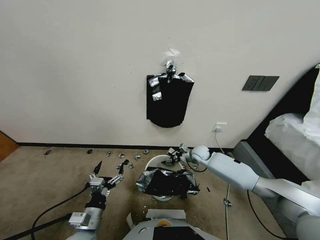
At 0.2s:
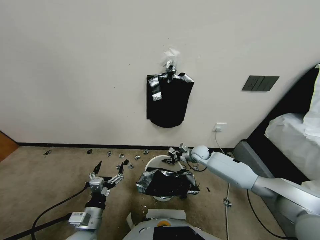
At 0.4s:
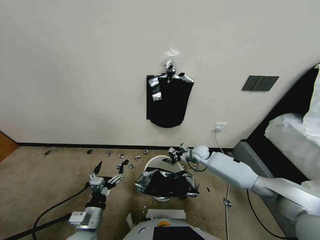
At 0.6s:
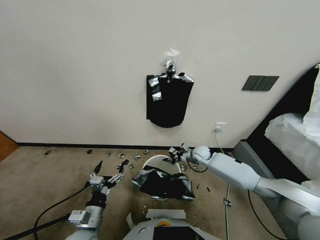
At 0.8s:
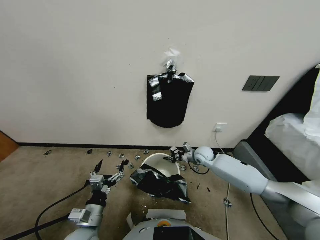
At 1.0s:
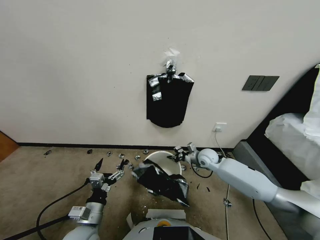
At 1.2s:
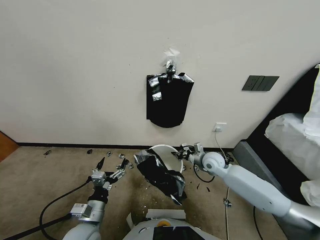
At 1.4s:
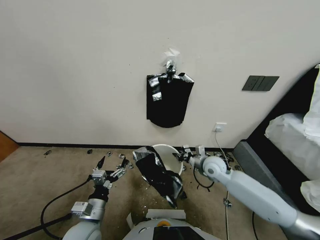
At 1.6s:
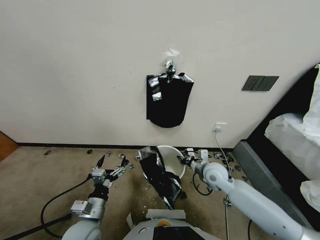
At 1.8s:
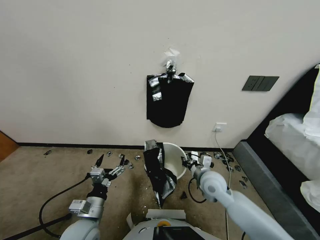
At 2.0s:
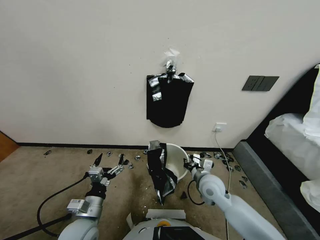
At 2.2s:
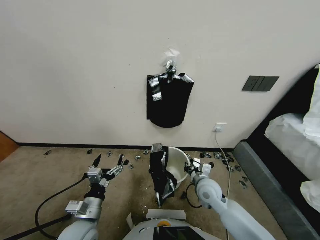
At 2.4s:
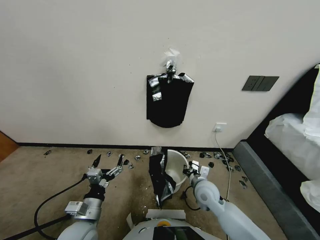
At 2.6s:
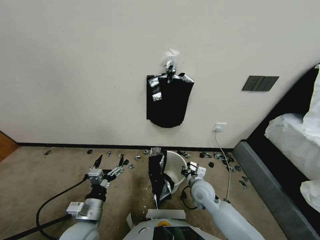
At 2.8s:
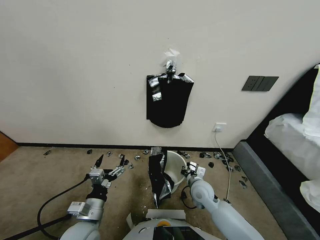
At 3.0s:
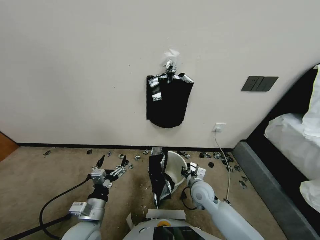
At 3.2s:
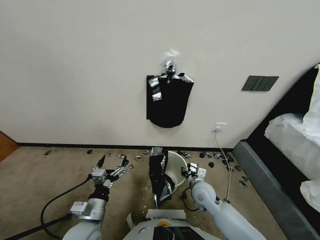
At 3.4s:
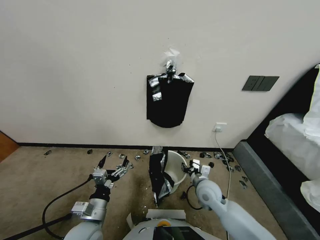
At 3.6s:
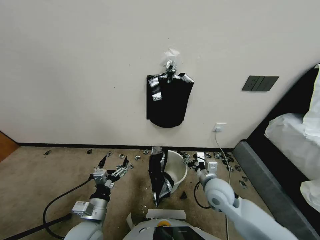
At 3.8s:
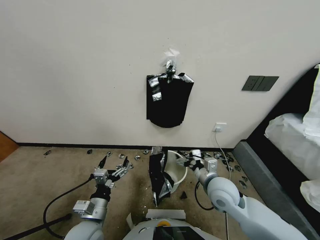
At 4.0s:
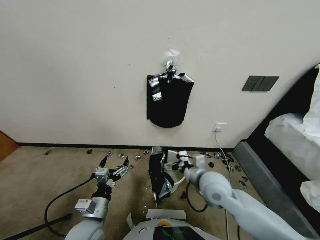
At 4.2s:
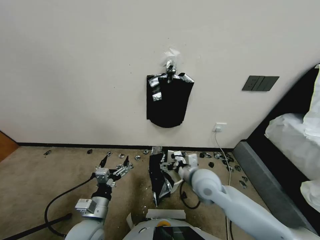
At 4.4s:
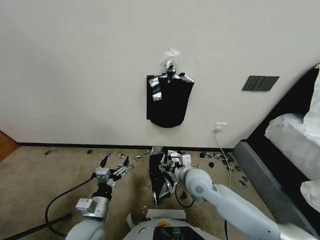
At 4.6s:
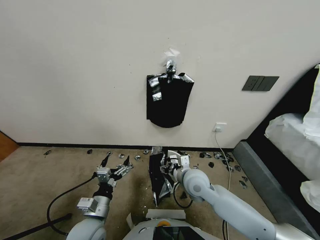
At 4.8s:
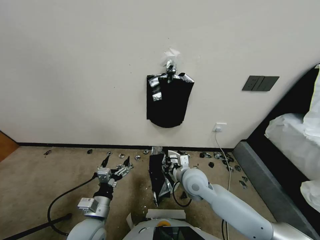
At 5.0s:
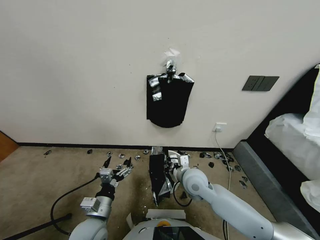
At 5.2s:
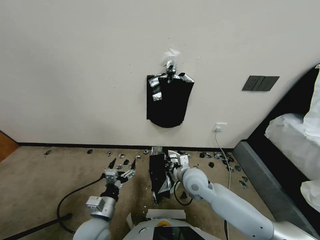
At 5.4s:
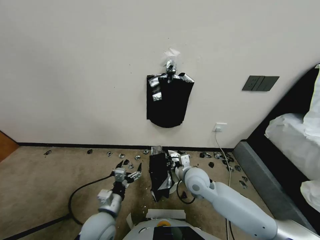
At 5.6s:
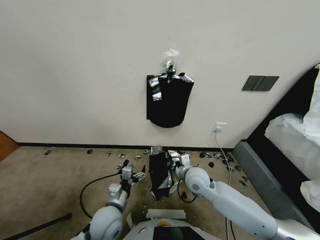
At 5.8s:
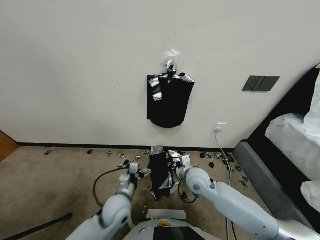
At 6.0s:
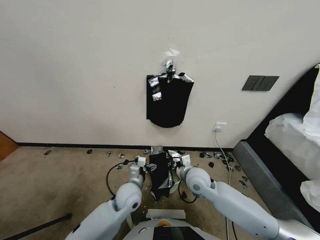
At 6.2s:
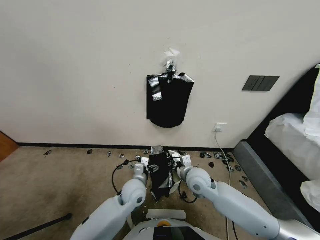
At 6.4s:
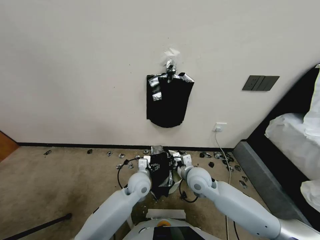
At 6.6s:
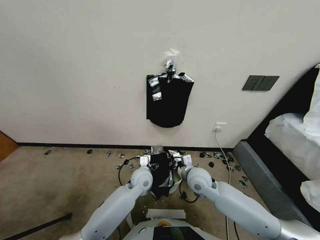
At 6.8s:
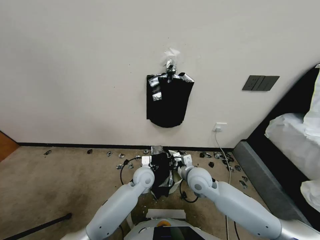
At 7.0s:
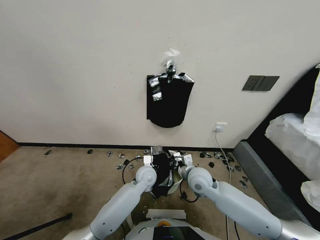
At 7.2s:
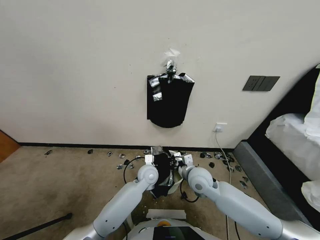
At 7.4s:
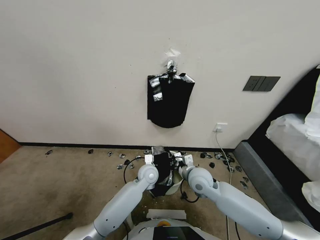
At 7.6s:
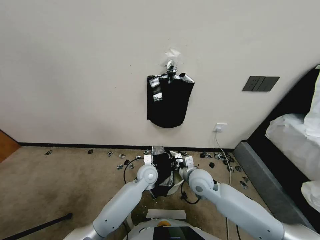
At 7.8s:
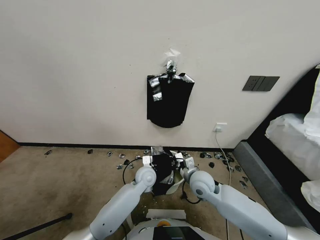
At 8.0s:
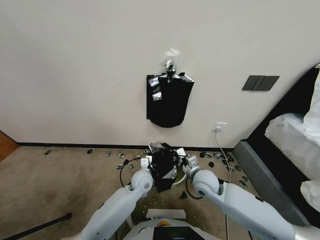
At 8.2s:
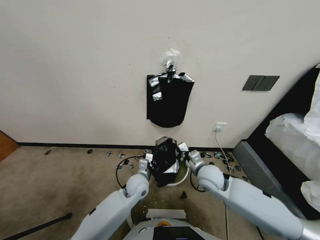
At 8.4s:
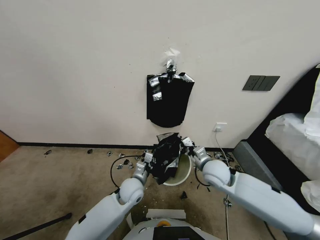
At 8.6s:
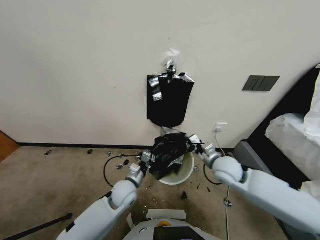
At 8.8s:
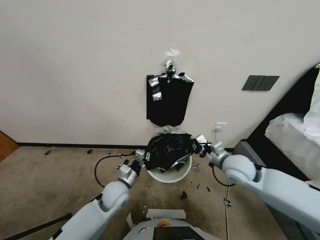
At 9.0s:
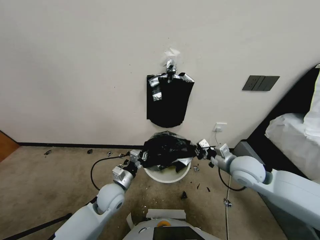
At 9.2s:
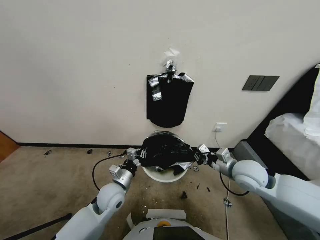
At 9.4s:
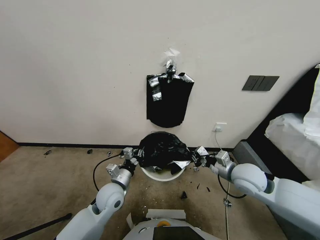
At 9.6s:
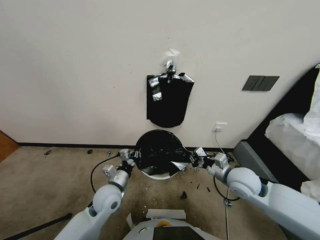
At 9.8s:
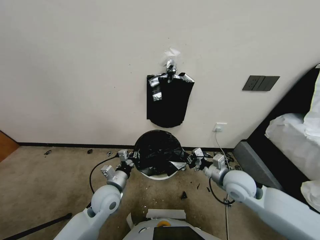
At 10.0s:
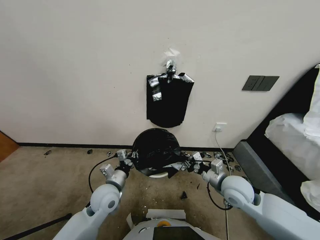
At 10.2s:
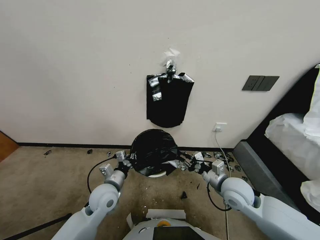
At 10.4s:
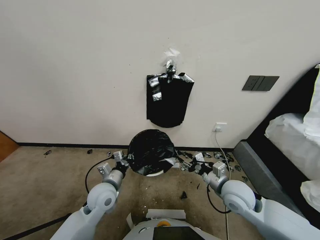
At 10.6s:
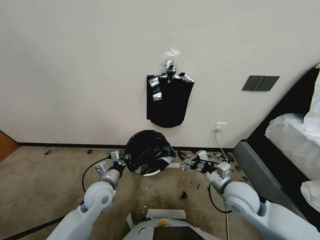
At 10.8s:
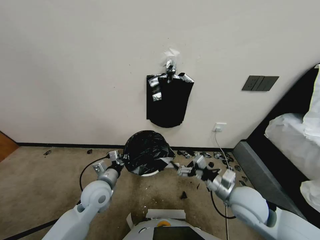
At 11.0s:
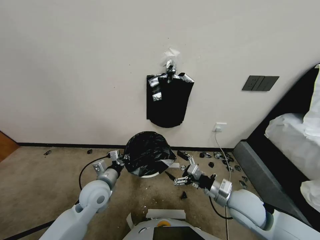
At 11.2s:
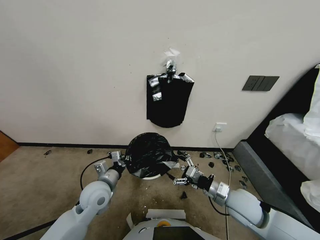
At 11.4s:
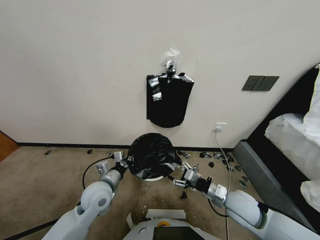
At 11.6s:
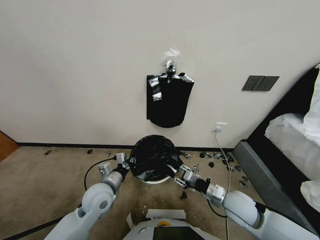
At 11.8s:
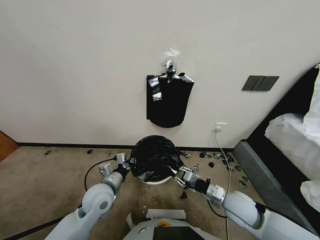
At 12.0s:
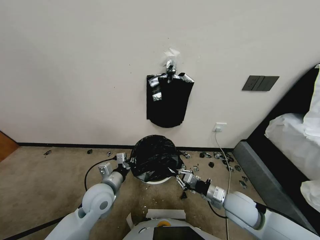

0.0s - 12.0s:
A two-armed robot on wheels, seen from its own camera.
Task of the whole recording: Place a trash bag onto the trash bin.
0.0s - 1.6s: The right gripper heads backward and upward, covering some 20 cm.
1.6s - 3.0s: The right gripper goes roughly 10 cm downward.
3.0s - 4.4s: The right gripper shifts about 10 cm upward and to the left, and opens its fingers.
4.4s - 6.0s: The right gripper closes its fingers. Meanwhile the left gripper is displaced forward and to the right by roughly 15 cm.
6.0s - 7.6s: The left gripper travels forward by some 5 cm, and closes.
7.6s - 9.0s: The right gripper moves to the right and upward, approximately 15 cm. The left gripper moves to the left and backward, some 15 cm.
9.0s - 10.4s: The right gripper travels backward by about 5 cm, and opens.
10.4s - 12.0s: The right gripper closes up.

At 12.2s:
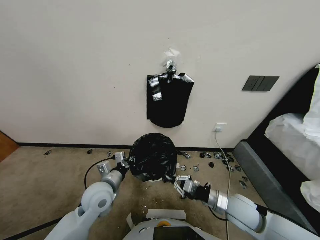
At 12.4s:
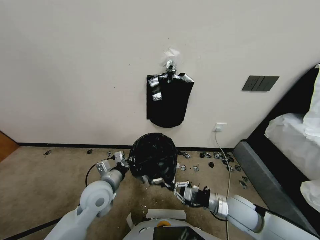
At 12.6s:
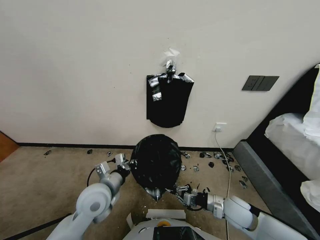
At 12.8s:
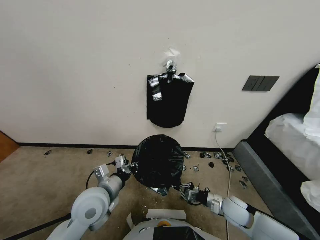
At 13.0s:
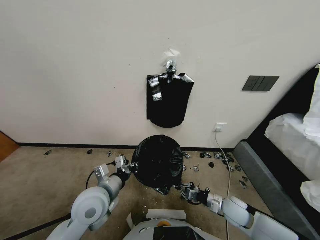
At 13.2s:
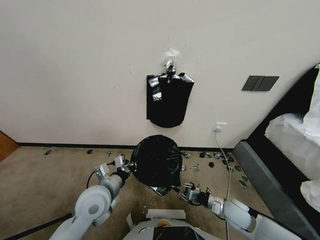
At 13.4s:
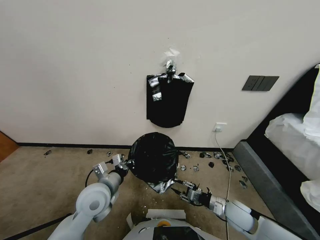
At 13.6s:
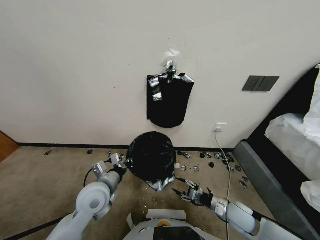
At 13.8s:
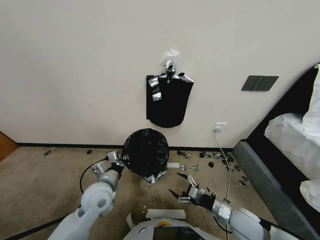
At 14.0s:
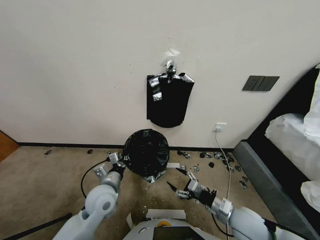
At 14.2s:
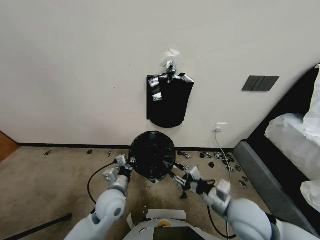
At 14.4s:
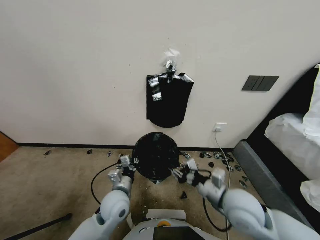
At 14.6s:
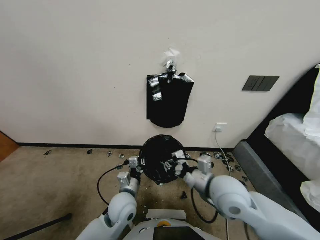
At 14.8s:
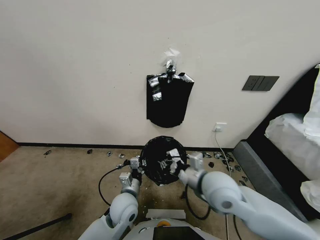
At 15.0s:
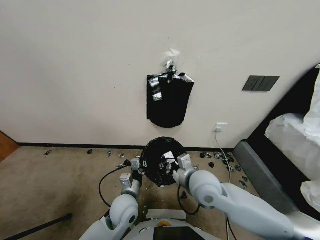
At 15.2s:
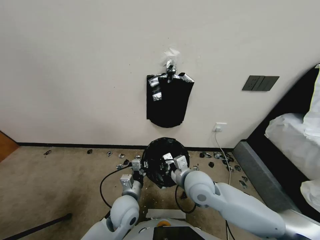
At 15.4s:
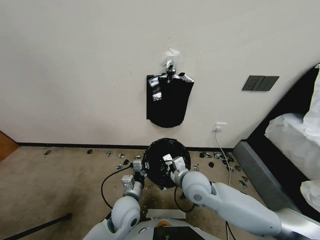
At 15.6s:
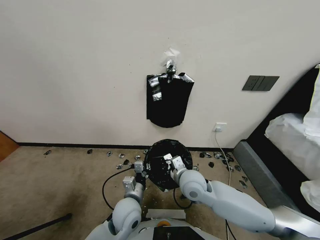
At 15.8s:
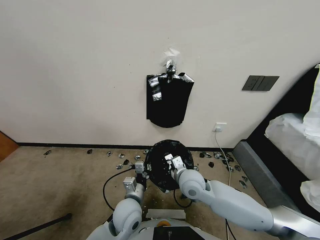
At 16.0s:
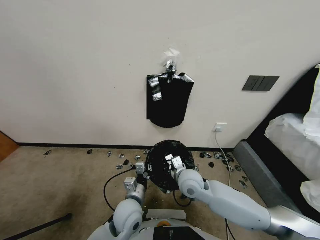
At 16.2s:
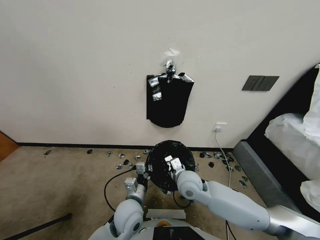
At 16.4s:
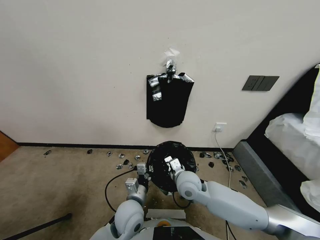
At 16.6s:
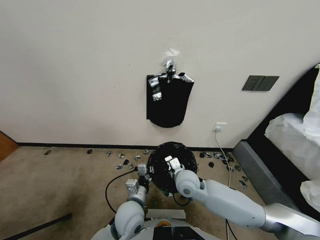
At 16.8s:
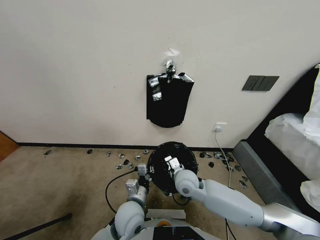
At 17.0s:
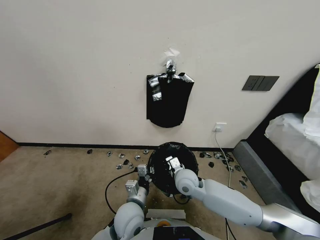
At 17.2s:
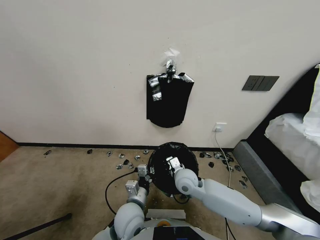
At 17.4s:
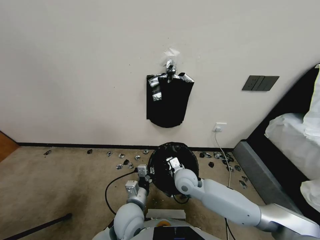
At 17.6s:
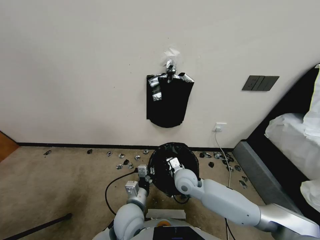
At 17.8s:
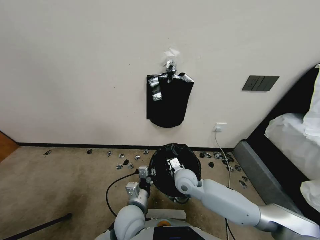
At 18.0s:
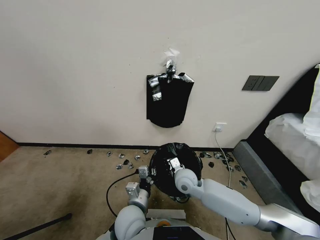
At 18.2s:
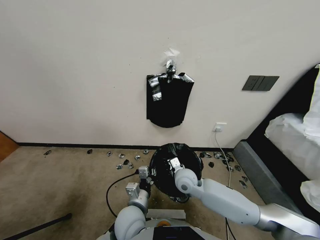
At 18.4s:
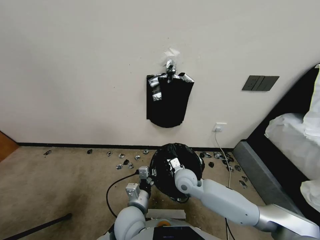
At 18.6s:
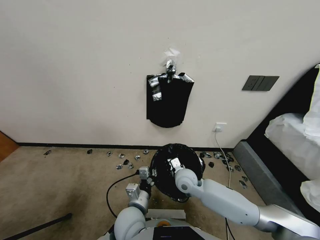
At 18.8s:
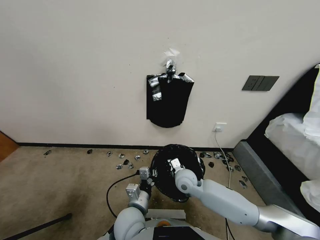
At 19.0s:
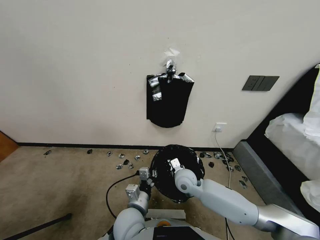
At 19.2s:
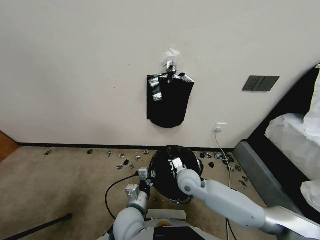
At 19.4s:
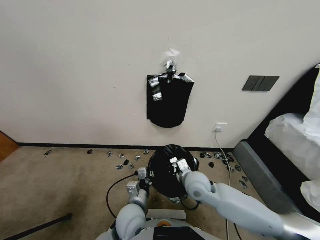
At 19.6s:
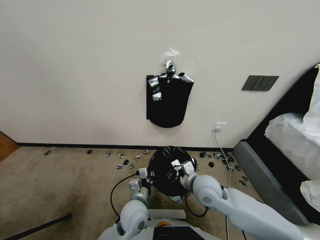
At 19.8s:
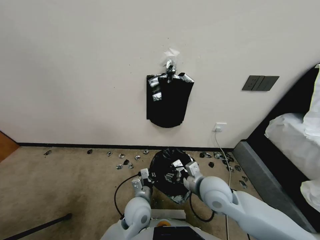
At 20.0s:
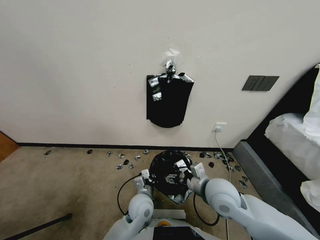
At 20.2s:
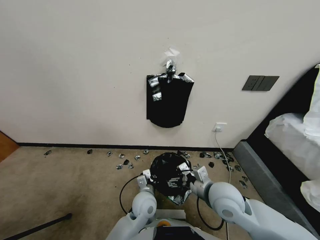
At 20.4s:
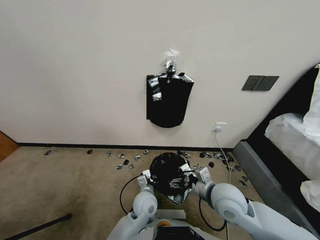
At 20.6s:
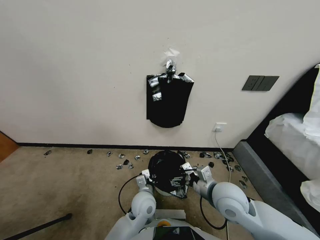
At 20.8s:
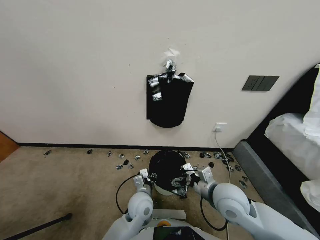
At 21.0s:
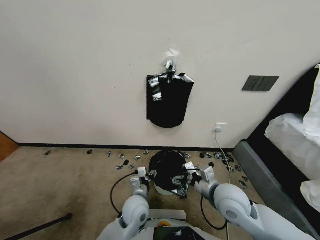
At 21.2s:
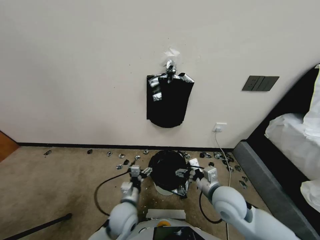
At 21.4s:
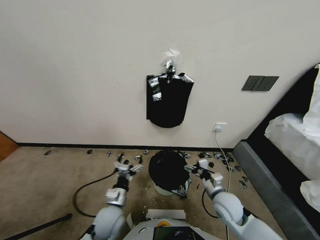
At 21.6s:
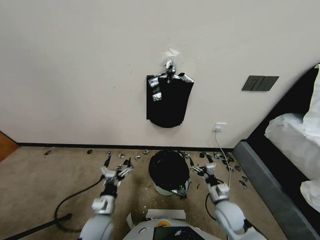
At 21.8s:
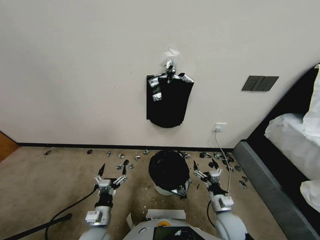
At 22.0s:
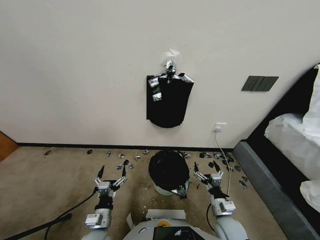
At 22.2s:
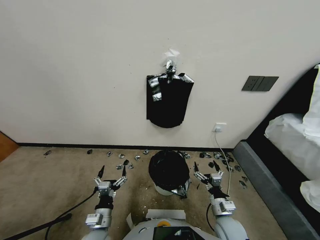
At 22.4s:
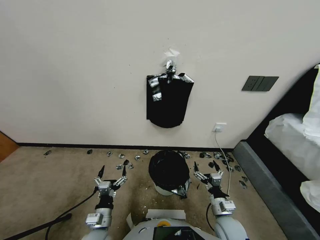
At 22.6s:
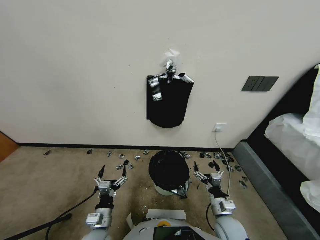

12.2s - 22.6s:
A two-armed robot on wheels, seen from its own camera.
Task of the whole recording: Place a trash bag onto the trash bin.
12.2s - 13.6s: The right gripper goes about 5 cm downward, and opens its fingers.
13.6s - 15.2s: The right gripper shifts some 25 cm to the left, upward and forward, and closes, while the left gripper is displaced to the right and downward by about 10 cm.
15.2s - 16.6s: The right gripper travels downward by about 5 cm.
16.6s - 18.2s: There are only small adjustments of the grippers.
18.2s - 19.6s: The right gripper heads upward, backward and to the right, covering about 10 cm, and opens up.
19.6s - 21.2s: The left gripper goes approximately 10 cm to the left, and opens up. Meanwhile the right gripper is displaced to the right and downward by roughly 10 cm, and opens.
21.2s - 22.6s: The right gripper goes about 10 cm downward and backward; the left gripper shifts roughly 10 cm backward and to the left.
